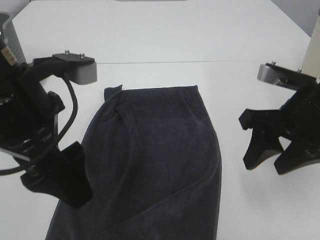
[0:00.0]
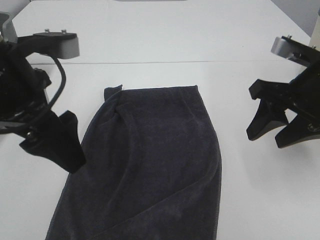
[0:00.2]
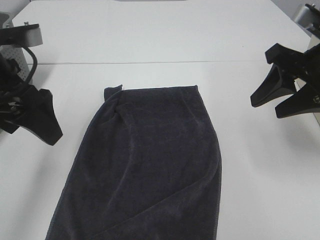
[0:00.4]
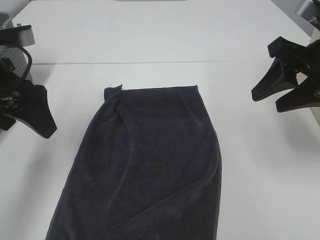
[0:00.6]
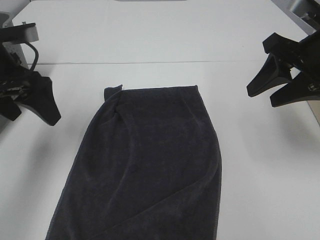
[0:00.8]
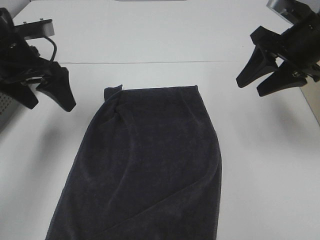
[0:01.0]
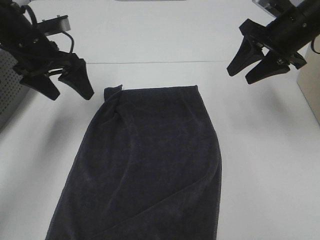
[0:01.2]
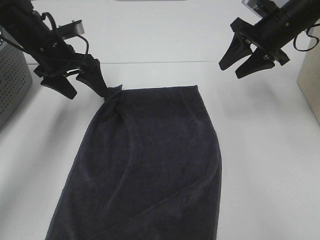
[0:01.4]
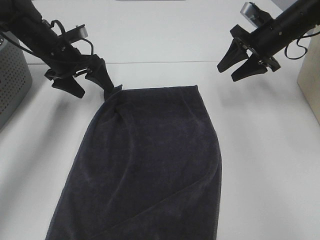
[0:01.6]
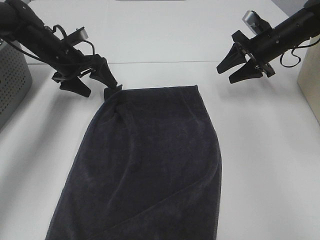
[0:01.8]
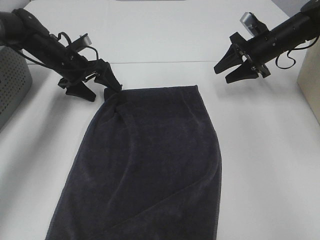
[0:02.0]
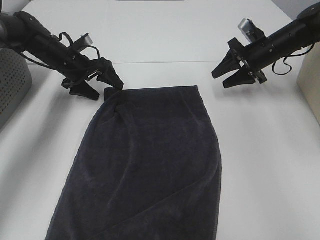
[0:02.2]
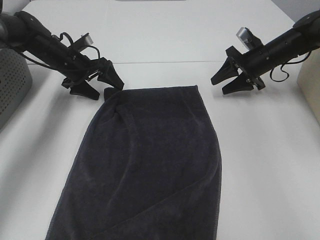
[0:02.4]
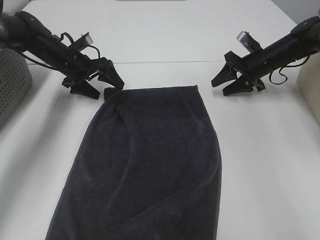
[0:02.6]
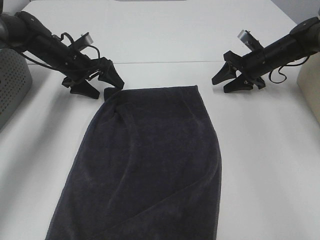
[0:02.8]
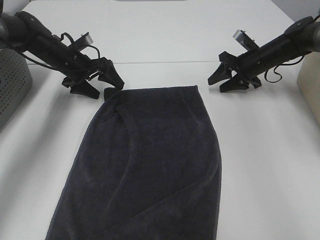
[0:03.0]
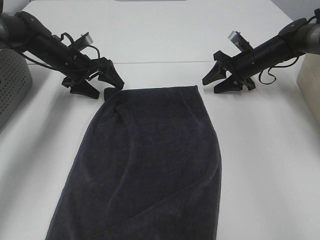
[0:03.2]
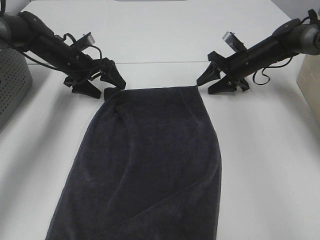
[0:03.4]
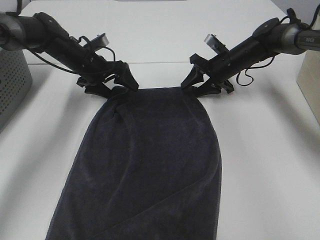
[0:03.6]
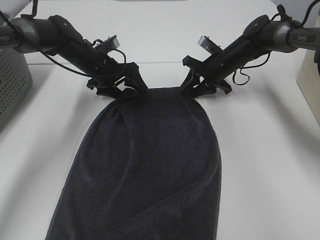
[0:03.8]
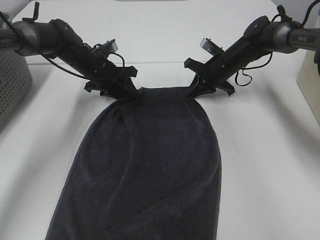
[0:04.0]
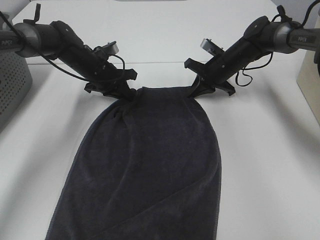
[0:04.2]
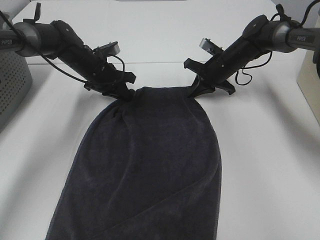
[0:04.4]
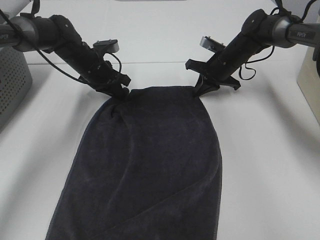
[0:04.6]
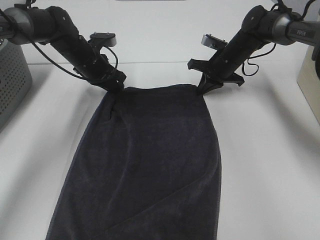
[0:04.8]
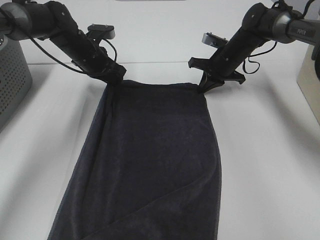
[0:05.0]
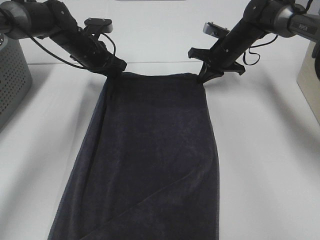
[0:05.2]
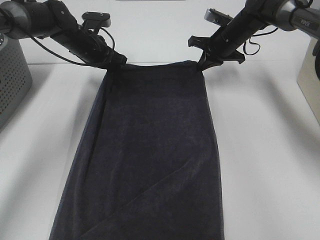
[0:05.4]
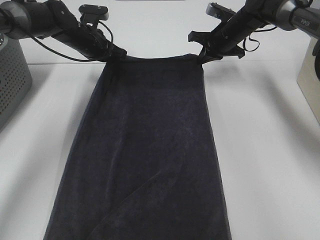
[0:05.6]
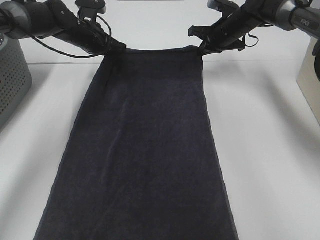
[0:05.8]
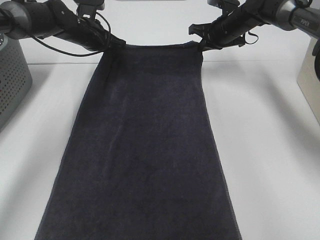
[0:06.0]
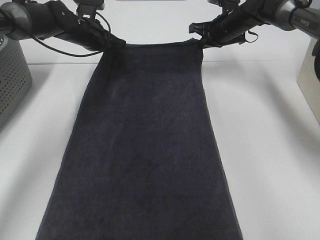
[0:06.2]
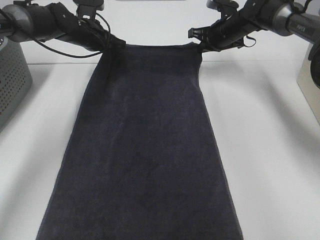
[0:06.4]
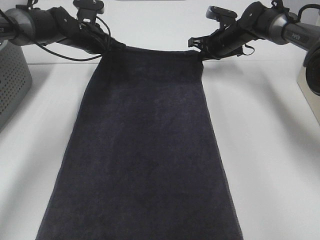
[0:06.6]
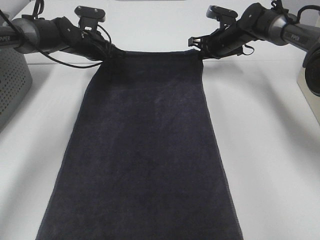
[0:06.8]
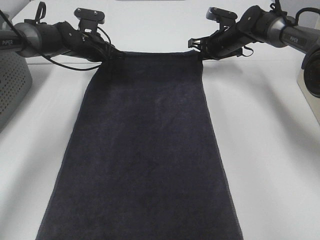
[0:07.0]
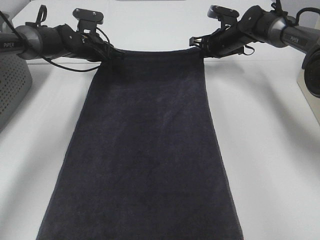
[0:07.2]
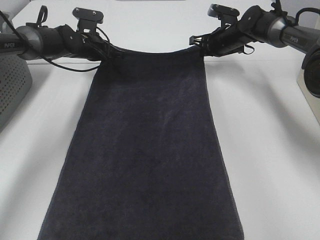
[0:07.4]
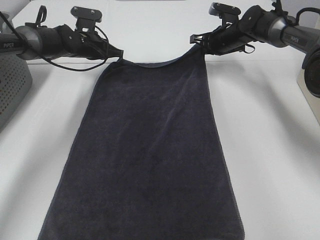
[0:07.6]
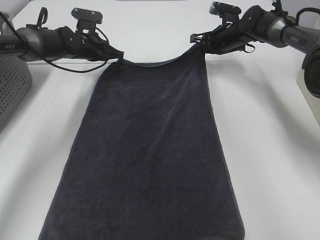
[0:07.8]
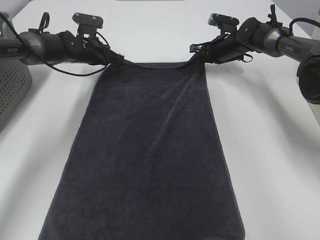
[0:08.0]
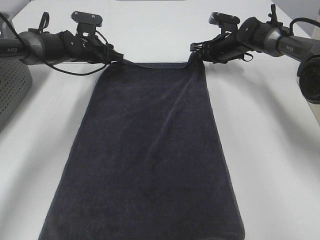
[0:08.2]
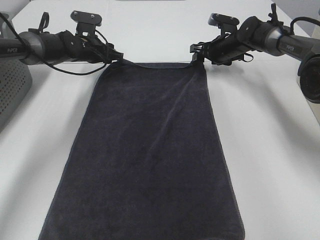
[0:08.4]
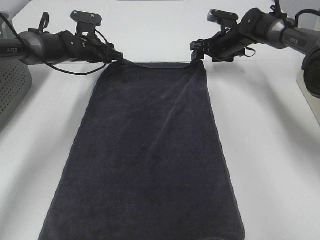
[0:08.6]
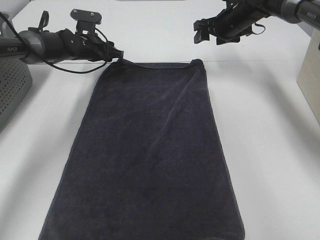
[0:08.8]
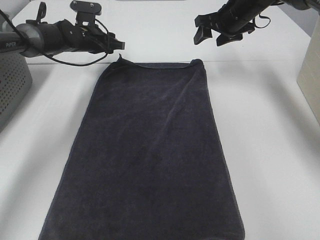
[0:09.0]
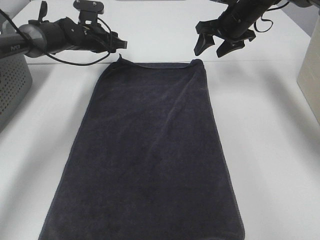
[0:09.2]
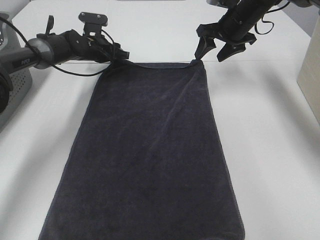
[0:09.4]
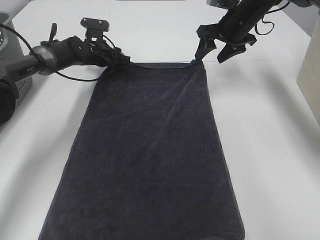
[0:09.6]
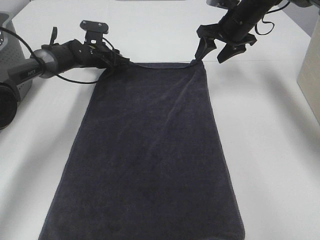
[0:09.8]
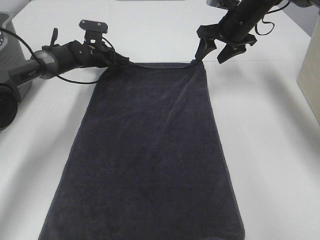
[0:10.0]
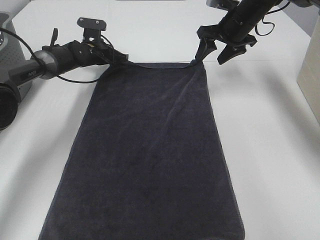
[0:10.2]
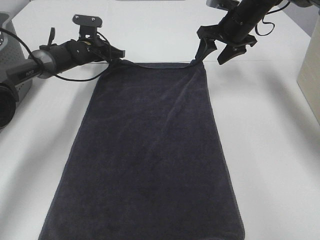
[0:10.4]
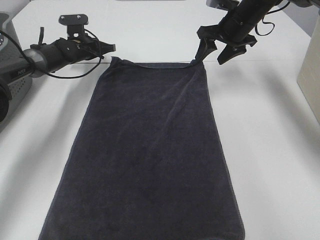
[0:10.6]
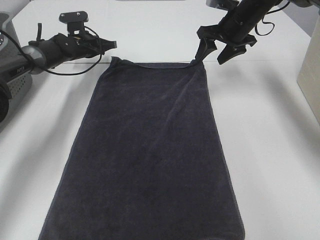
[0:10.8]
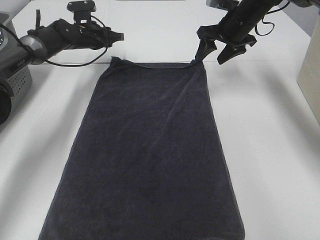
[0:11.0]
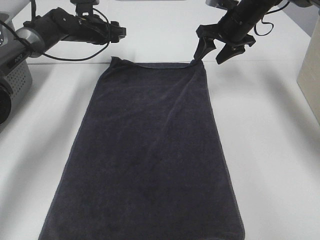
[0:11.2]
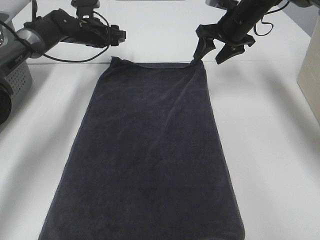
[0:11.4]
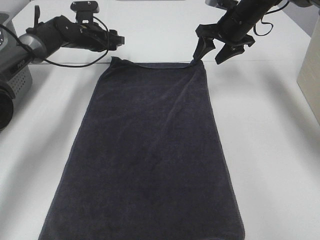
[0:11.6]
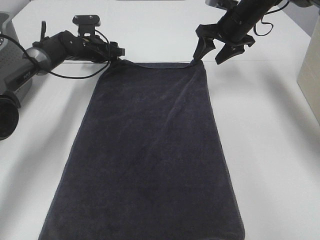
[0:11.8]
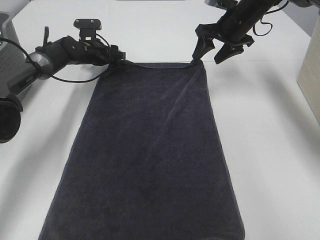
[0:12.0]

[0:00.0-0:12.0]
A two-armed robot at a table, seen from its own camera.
Task of the whole recording: Remove the towel and place it.
Step, 0:00.0 to 0:02.8: Right hand:adjust the gray towel.
Step, 0:00.0 to 0:04.4: Left hand:adjust the gray towel.
0:00.0 to 0:01.6: The right gripper heads forward, covering some 25 cm; the left gripper is displaced forward and downward by some 30 cm.
0:01.6 to 0:03.0: The right gripper shifts some 10 cm downward. The left gripper changes place by about 5 cm.
0:03.0 to 0:04.4: The left gripper is displaced to the right by about 5 cm, and closes its fingers. Meanwhile the right gripper shifts roughly 10 cm to the left, and closes.
0:04.4 to 0:06.0: The left gripper travels upward by roughly 5 cm. Meanwhile the right gripper travels upward and forward by approximately 10 cm.
0:06.0 to 0:07.6: The grippers make only small movements.
0:07.6 to 0:09.0: The left gripper opens its fingers, while the right gripper heads upward, covering about 10 cm, and opens.
0:09.0 to 0:10.4: The left gripper moves approximately 5 cm, and closes up.
0:10.4 to 0:12.0: The left gripper opens up.

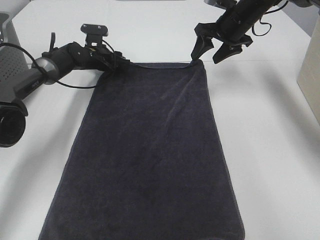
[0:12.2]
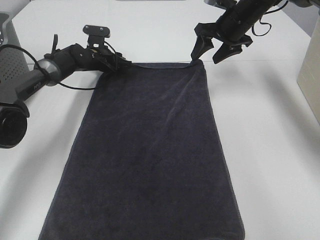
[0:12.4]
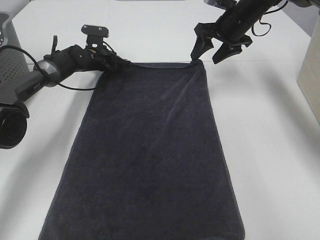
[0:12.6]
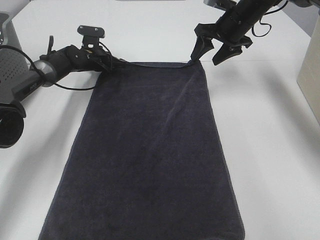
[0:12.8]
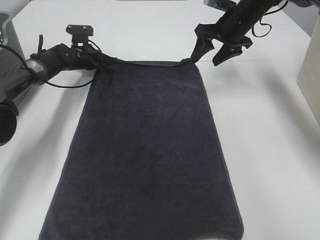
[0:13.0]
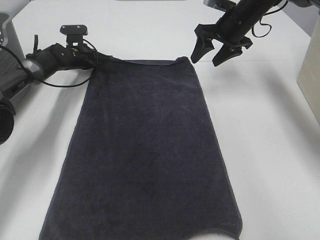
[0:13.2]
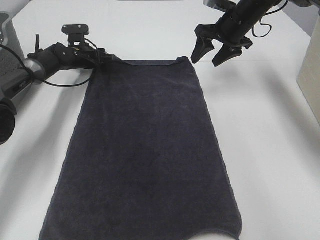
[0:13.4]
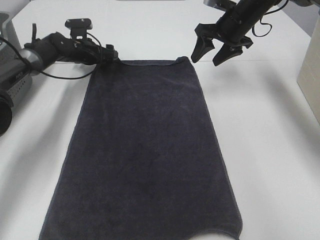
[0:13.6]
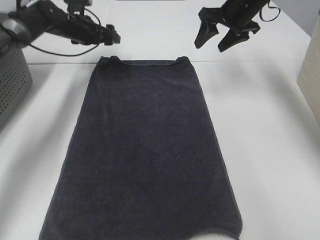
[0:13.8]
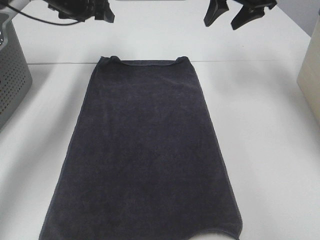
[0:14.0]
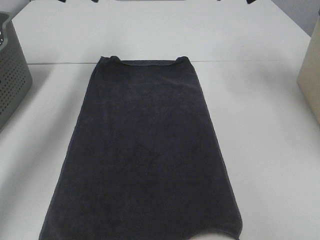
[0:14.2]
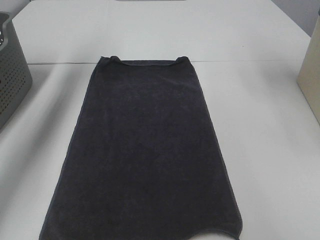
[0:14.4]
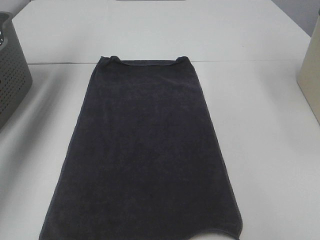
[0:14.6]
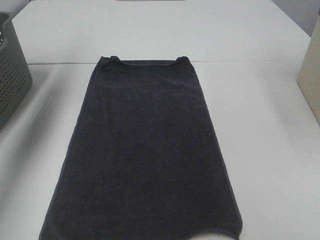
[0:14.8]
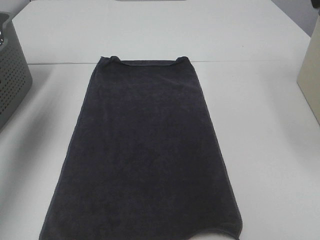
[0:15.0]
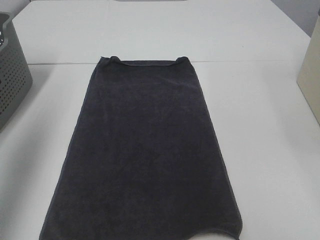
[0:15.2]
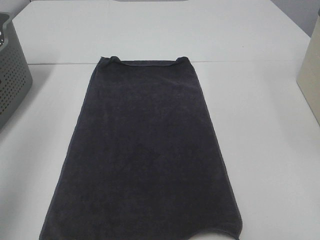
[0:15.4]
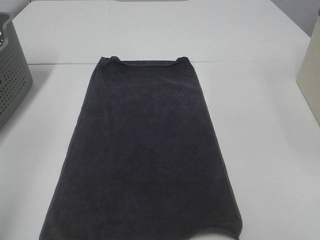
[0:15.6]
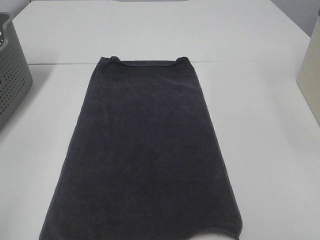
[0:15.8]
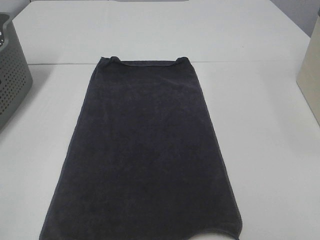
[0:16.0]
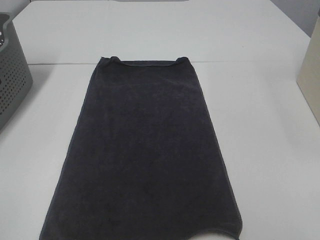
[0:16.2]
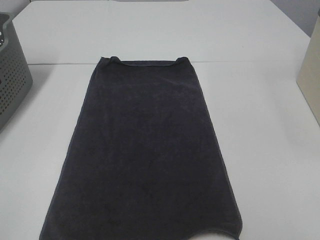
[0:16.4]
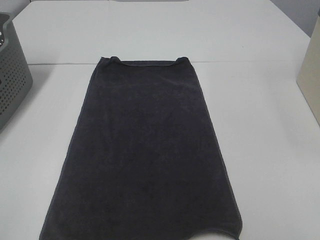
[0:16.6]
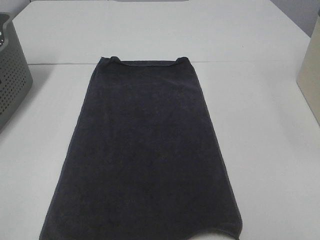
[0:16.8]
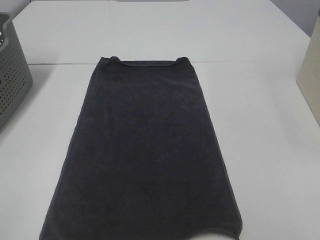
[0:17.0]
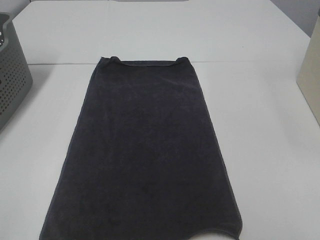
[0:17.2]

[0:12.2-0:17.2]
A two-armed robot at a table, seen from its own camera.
Task of the whole recording: Remove the towel and place it.
0:12.2 to 0:13.8: The left gripper is displaced upward by roughly 10 cm, and closes and opens again.
0:13.8 to 0:15.6: The left gripper shifts some 60 cm backward and upward, while the right gripper goes approximately 50 cm backward.

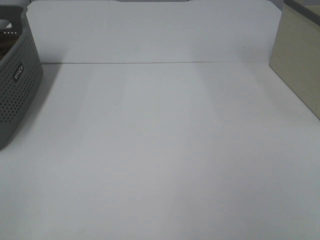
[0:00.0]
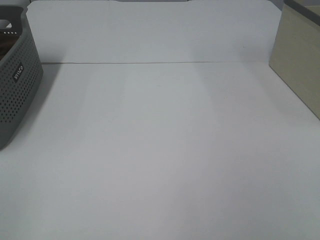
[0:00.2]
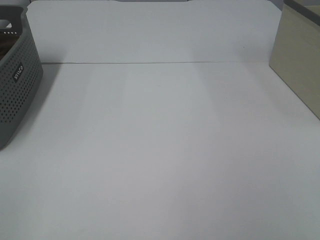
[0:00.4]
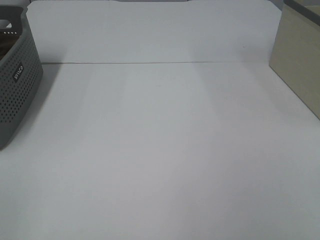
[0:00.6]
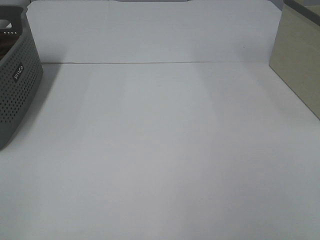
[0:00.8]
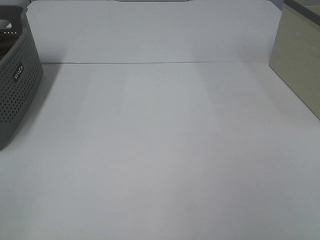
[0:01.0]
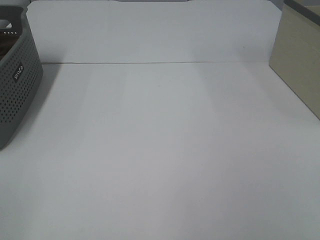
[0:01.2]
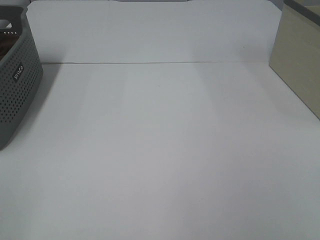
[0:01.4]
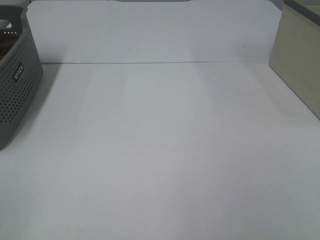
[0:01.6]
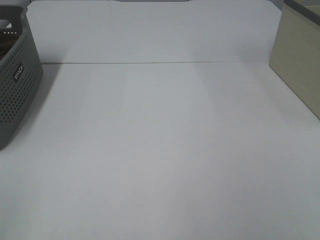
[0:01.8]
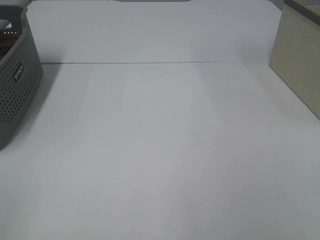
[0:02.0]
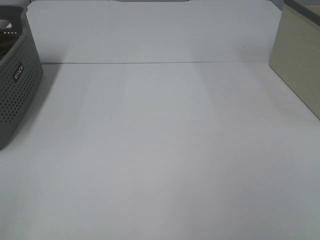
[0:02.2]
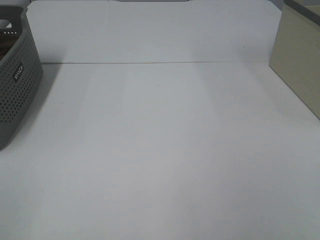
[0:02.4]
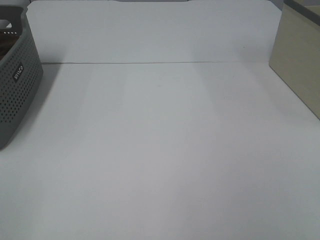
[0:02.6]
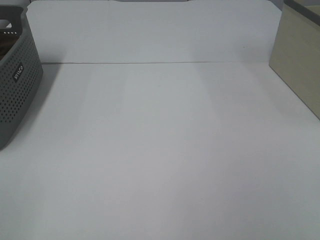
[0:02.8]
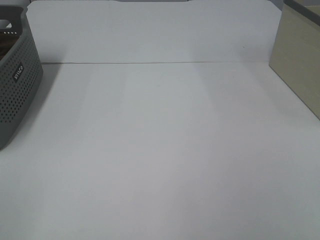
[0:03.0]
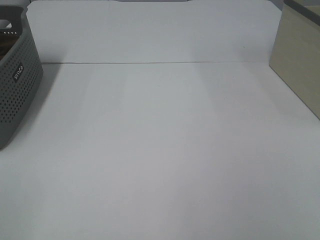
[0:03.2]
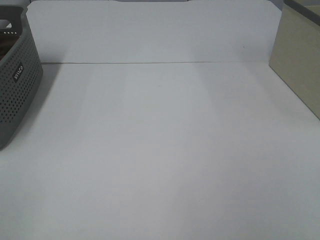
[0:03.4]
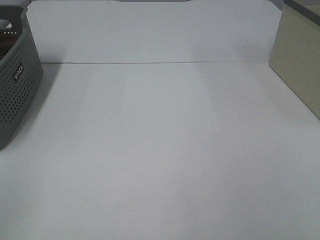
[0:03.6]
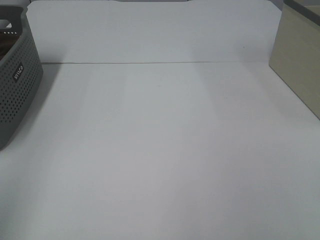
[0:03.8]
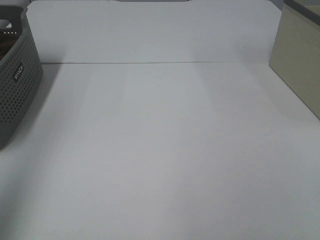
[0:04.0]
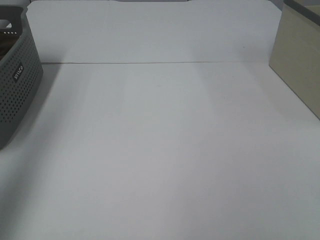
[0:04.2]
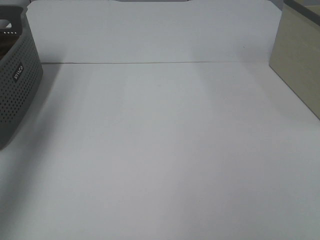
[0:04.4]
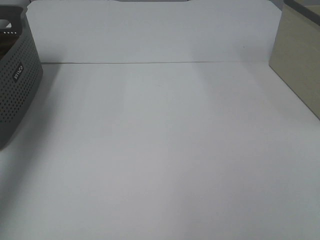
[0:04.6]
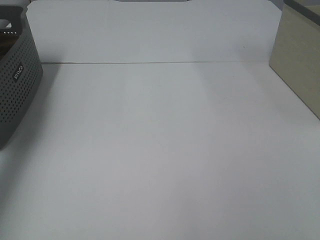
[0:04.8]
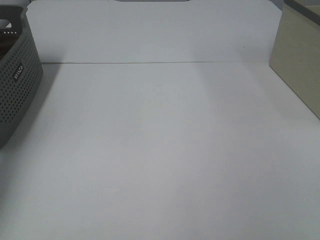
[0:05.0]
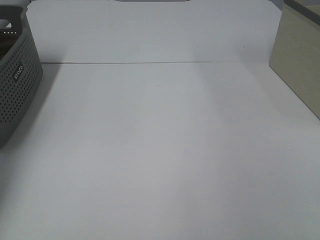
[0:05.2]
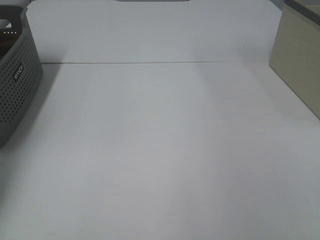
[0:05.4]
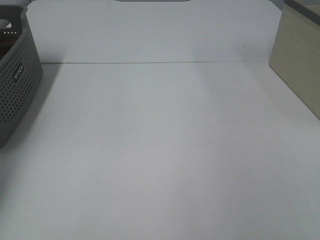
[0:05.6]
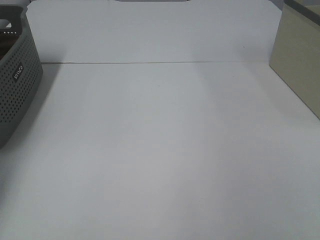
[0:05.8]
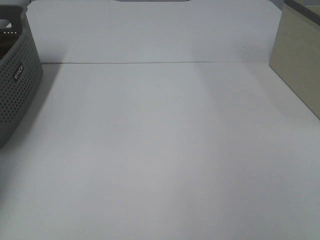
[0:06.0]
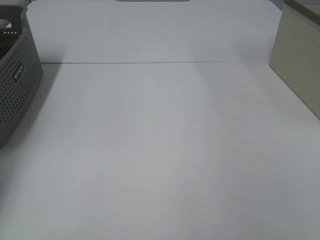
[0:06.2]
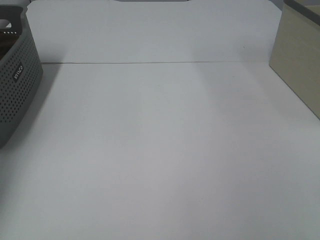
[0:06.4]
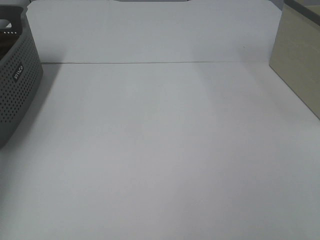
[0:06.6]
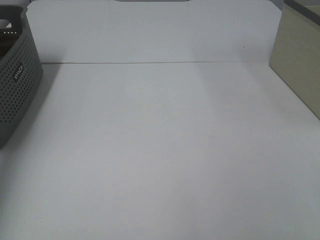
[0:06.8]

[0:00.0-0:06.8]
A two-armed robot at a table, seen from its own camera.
Task of the whole recording: Remove the towel and place it.
0:02.8 to 0:04.0: The left gripper goes approximately 20 cm upward and forward.
0:04.0 to 0:05.4: The left gripper is displaced forward and downward by roughly 40 cm.
